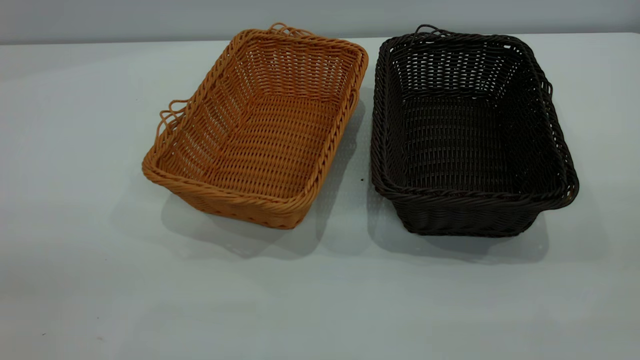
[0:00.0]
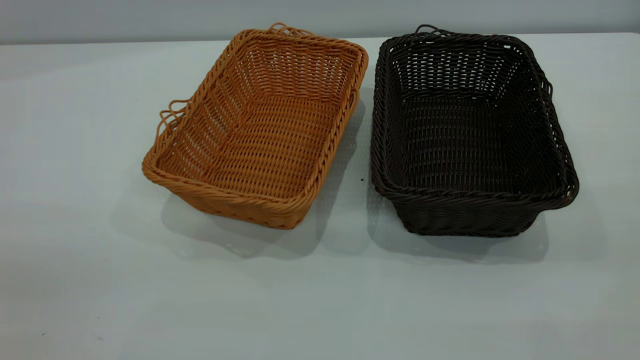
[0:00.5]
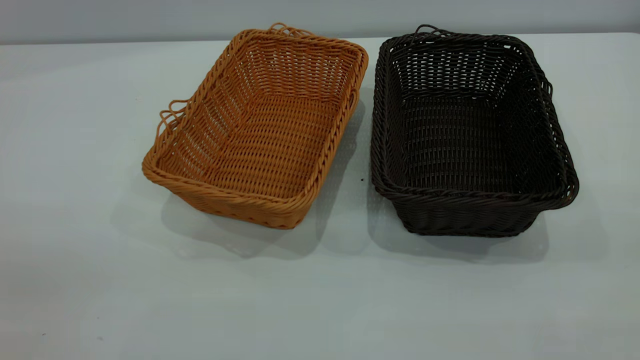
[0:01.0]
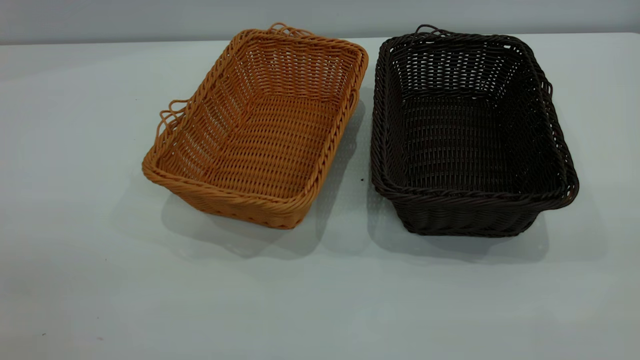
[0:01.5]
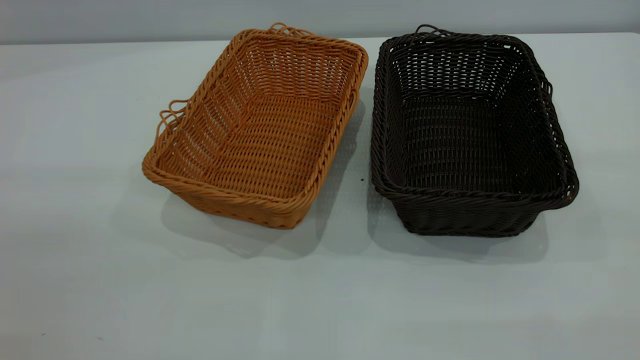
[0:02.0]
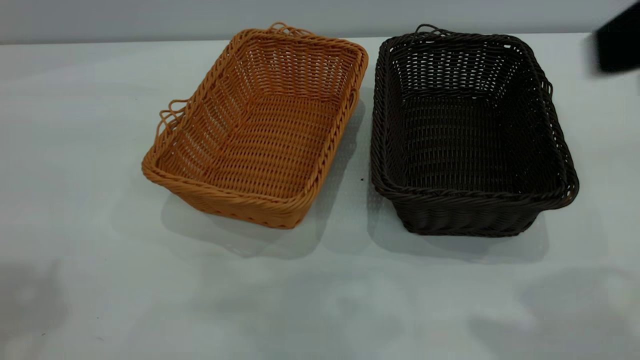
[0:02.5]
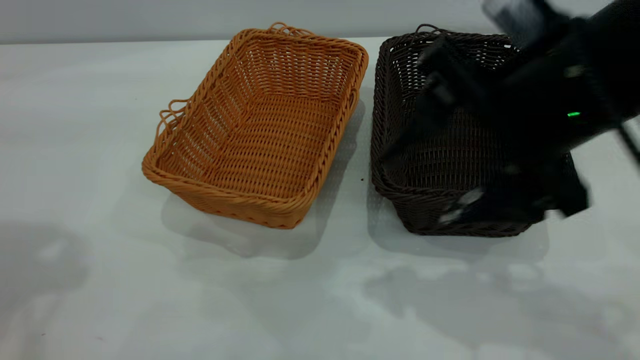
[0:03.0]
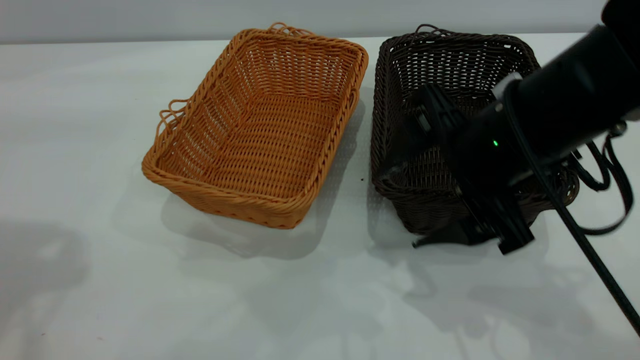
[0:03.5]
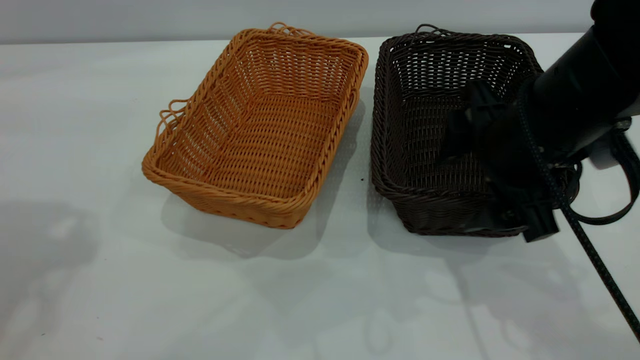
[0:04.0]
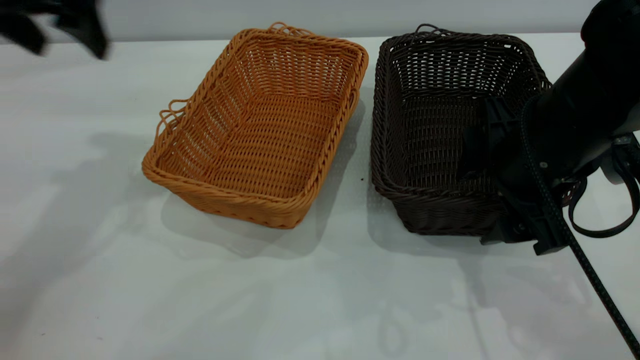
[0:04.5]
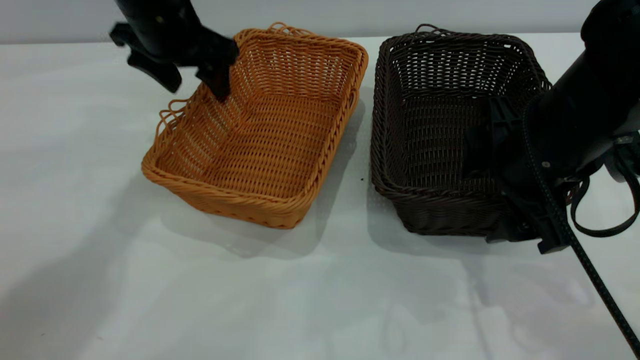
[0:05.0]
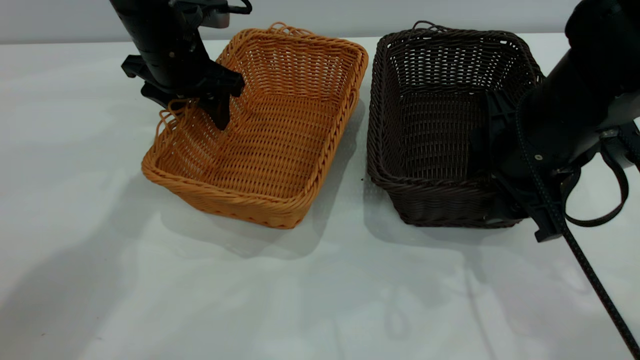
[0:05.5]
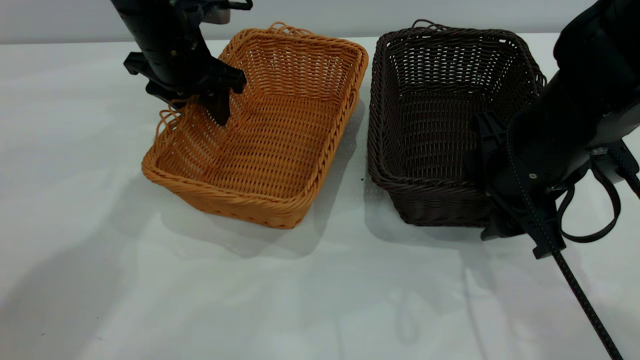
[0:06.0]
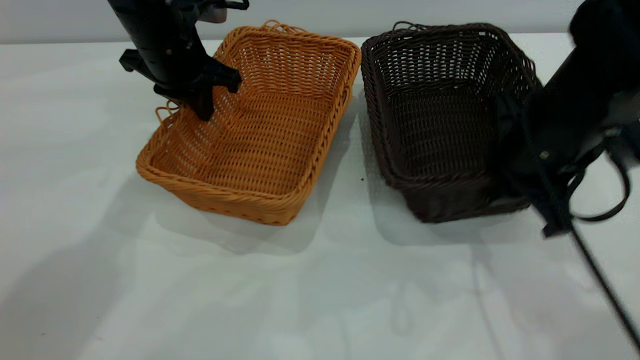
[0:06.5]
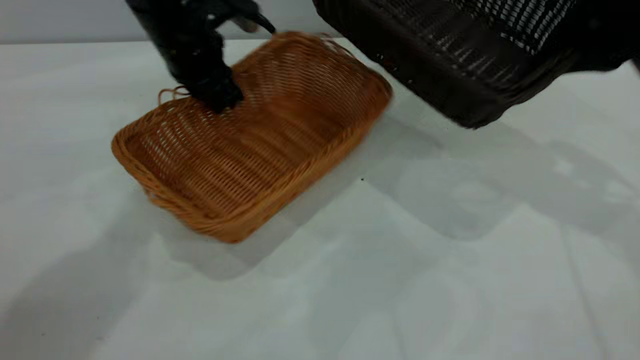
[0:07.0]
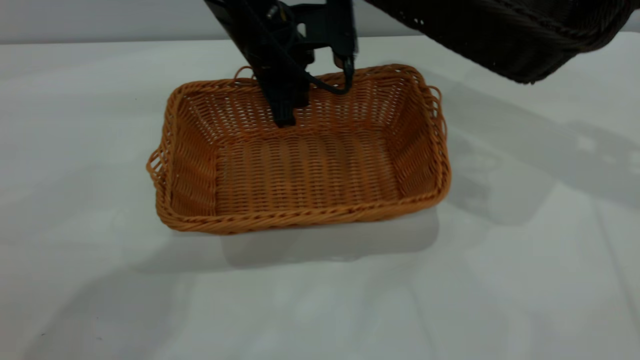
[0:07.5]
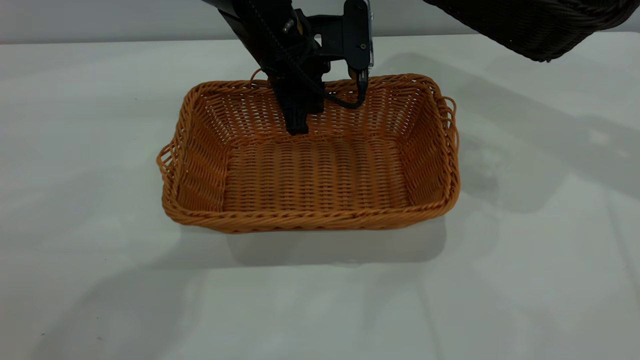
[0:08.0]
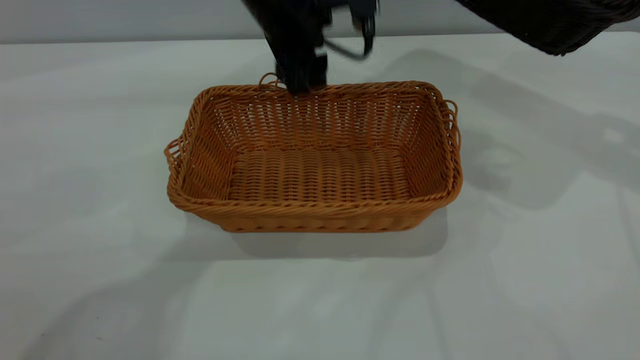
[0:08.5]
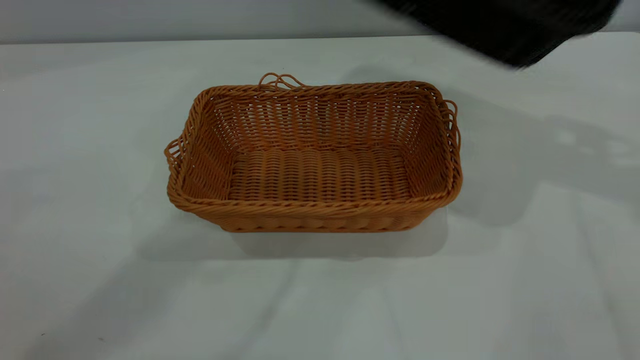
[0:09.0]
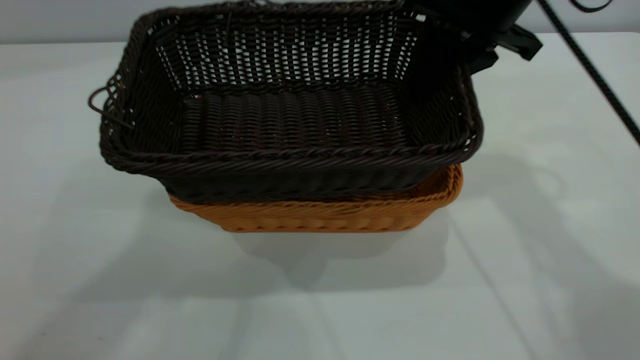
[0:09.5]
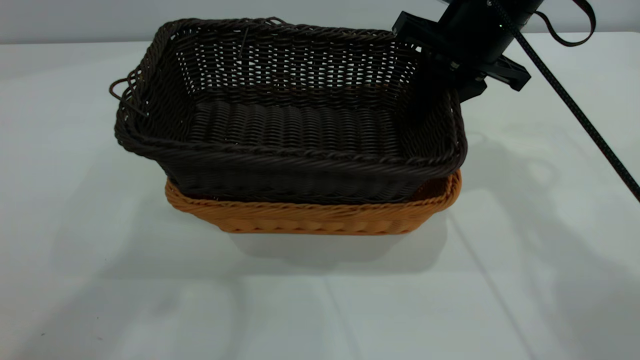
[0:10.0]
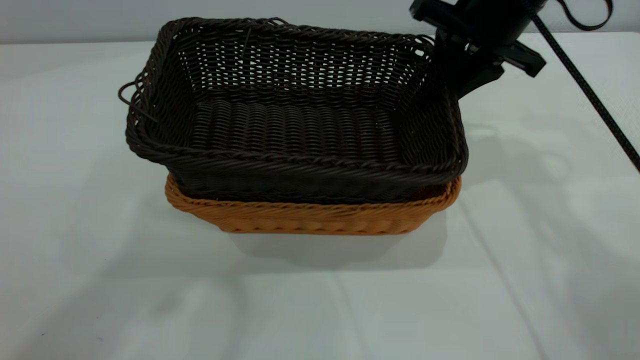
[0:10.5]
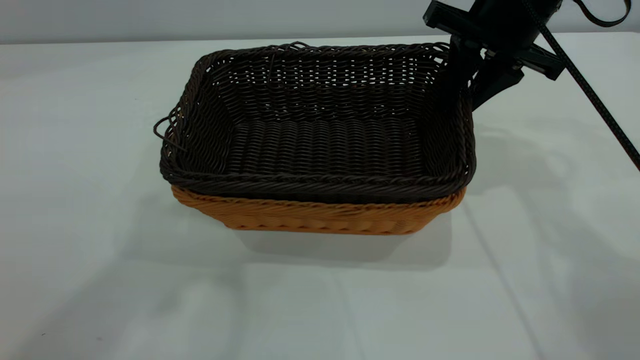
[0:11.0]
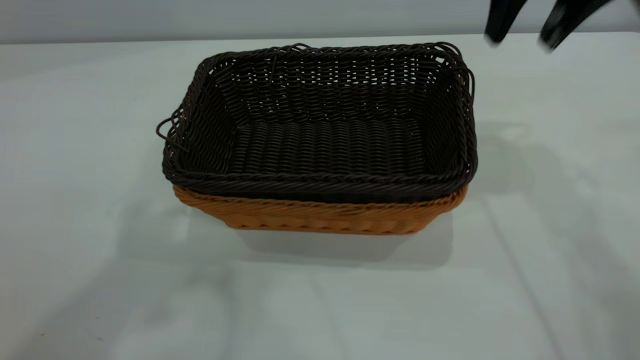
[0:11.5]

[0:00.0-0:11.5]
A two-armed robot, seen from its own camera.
Task of the whole recording: the left gripper grasp the brown basket and place it in the center of the table, the right gripper grasp the black basket and place it inside the brown one.
Step, 0:00.0 to 0:06.5: Pick up the light basket with the right gripper.
Step, 0:07.0 to 0:08.5: Place the light-colored basket in the center.
Step, 0:09.0 to 0:11.0: Place the dark basket on top of the light basket.
0:02.0 to 0:04.0: The right gripper moves forward, downward and to the left, about 35 cm.
0:04.0 to 0:06.0: The left gripper heads downward, forward and to the right, covering roughly 30 cm, and closes up, while the right gripper closes its fingers.
0:06.0 to 0:07.5: The right gripper heads upward, to the right and forward, covering roughly 25 cm, and closes; the left gripper shifts approximately 10 cm to the right, and closes its fingers.
0:07.5 to 0:09.5: The right gripper travels to the left by roughly 15 cm, while the left gripper travels upward and backward by about 40 cm, and opens.
0:09.5 to 0:11.5: The right gripper shifts some 10 cm upward and to the right, and opens up.

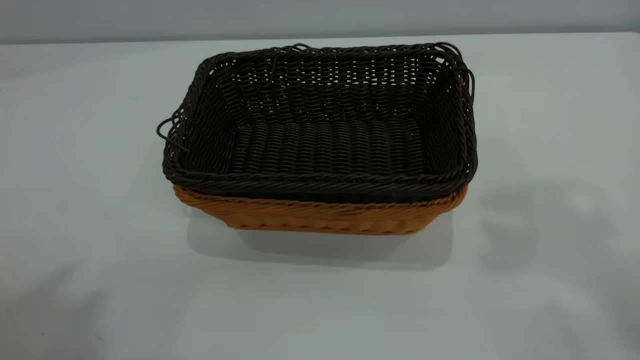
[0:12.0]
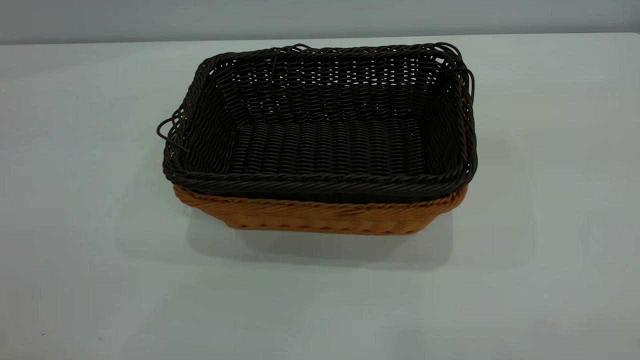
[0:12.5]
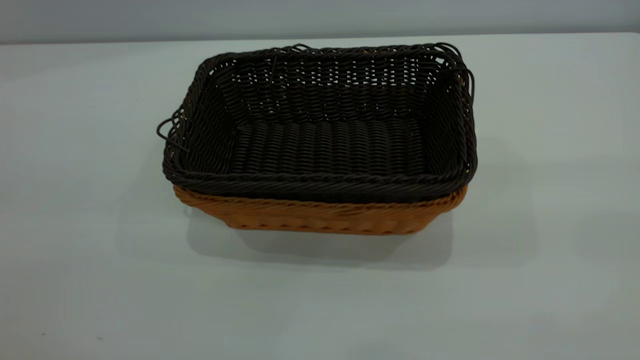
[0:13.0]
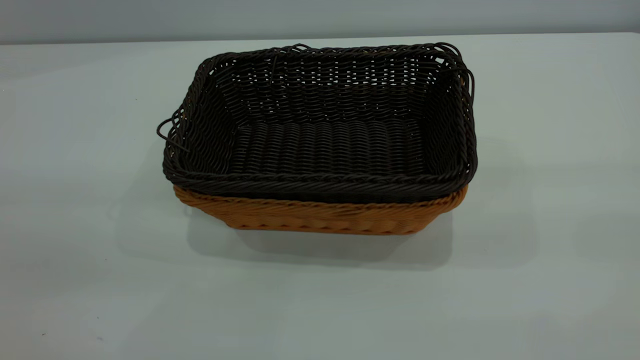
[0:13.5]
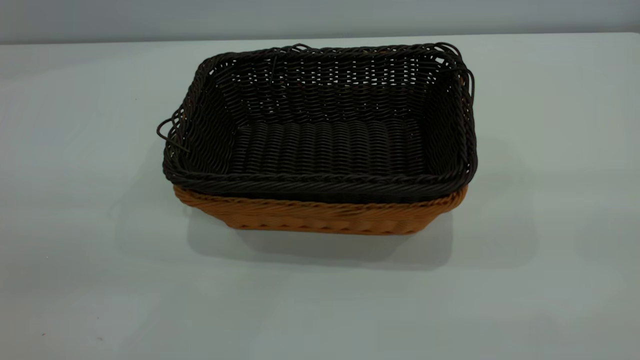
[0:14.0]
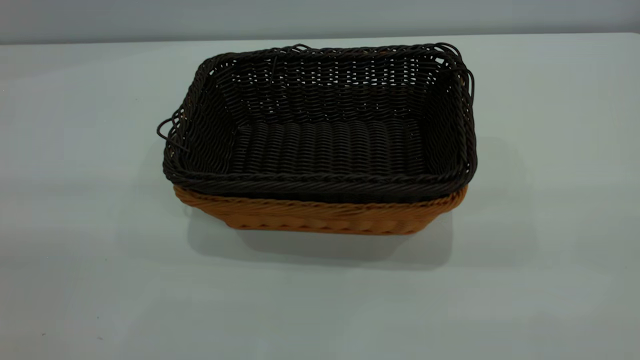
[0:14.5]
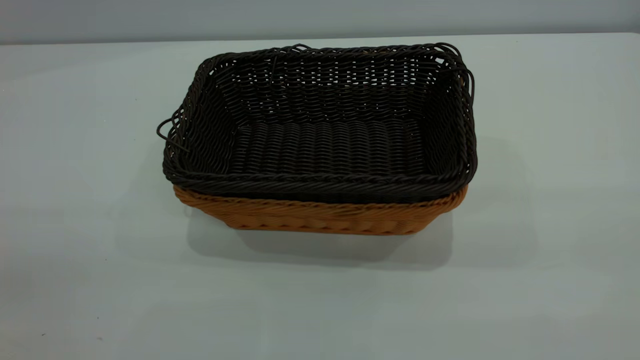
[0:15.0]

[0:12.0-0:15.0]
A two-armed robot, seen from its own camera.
Task of the whole recording: the left gripper grasp the brown basket and place it in the center of the table, the right gripper grasp the black basket and place it inside the brown one.
0:12.0 to 0:13.5: The left gripper goes about 25 cm downward.

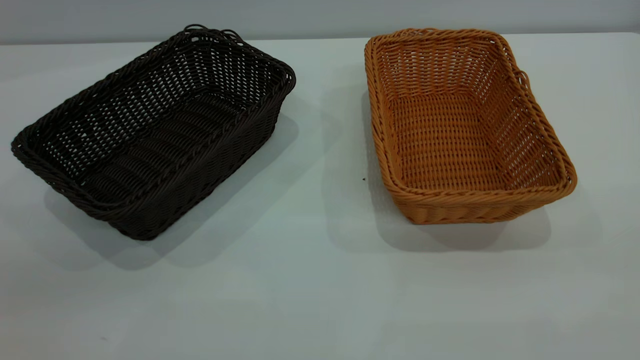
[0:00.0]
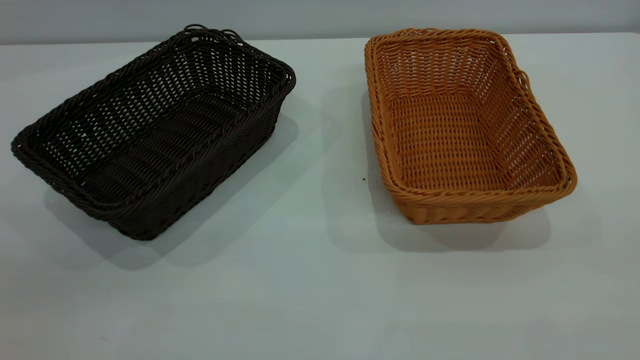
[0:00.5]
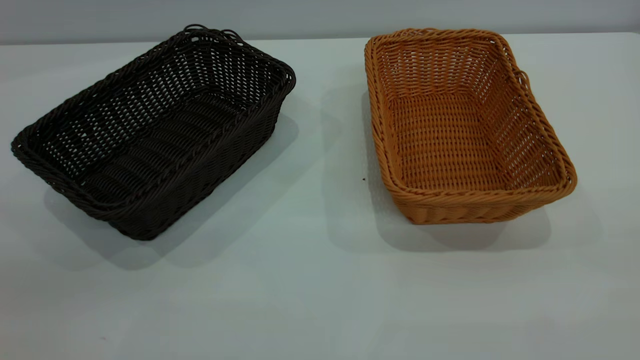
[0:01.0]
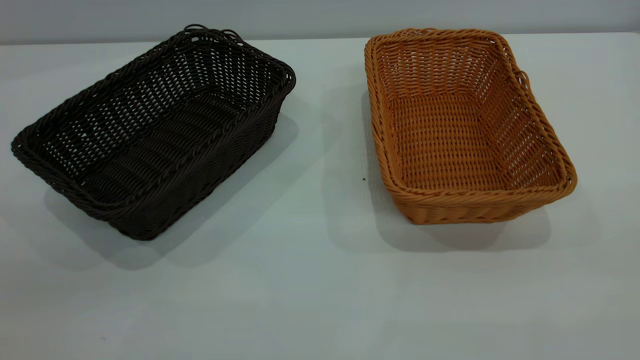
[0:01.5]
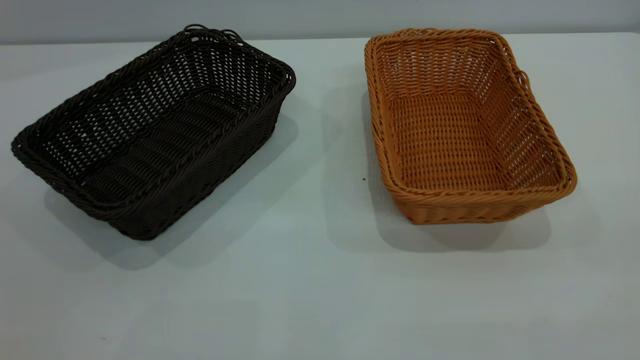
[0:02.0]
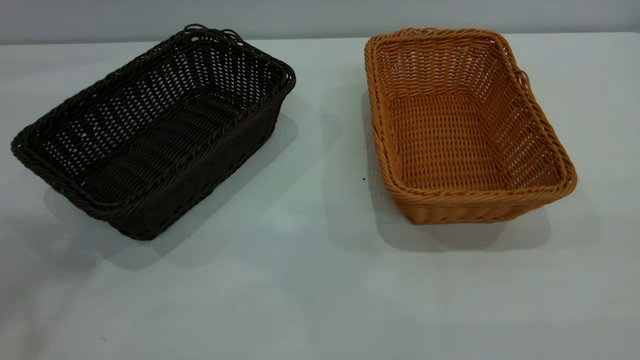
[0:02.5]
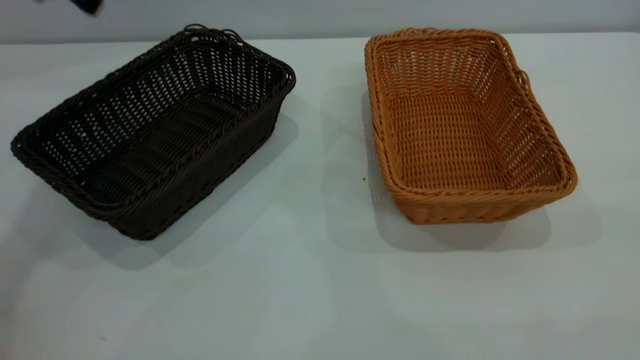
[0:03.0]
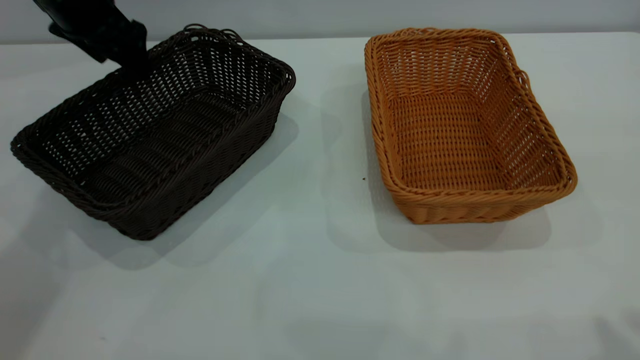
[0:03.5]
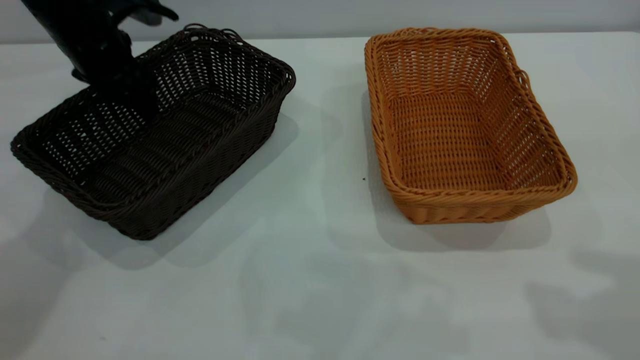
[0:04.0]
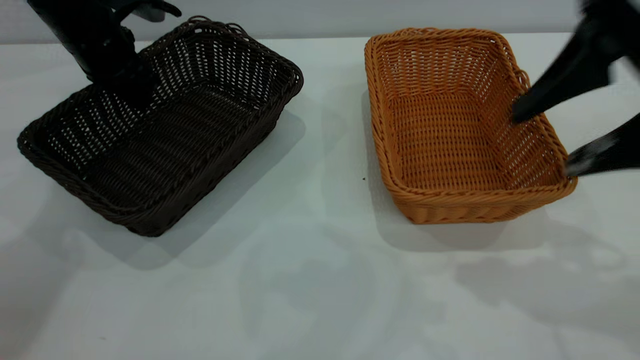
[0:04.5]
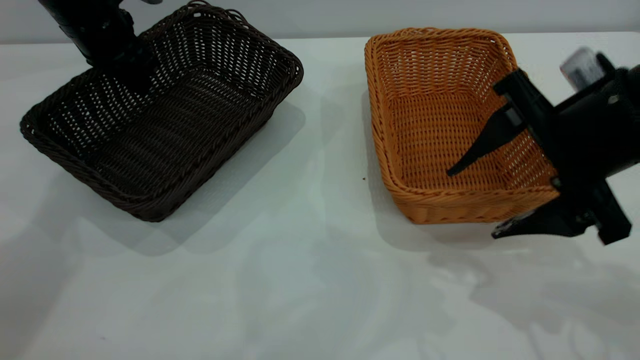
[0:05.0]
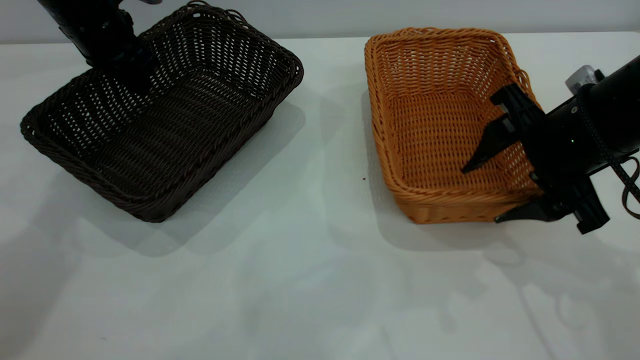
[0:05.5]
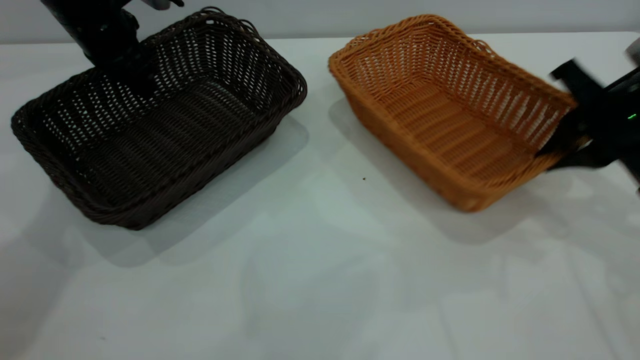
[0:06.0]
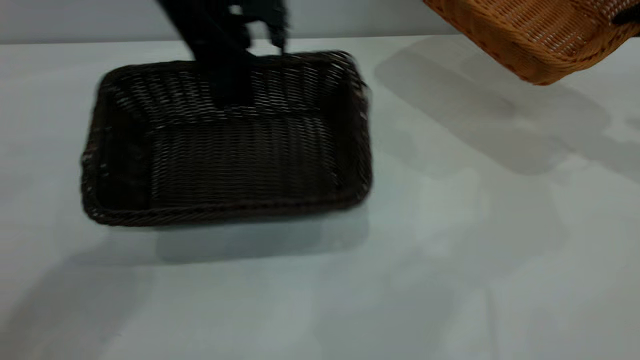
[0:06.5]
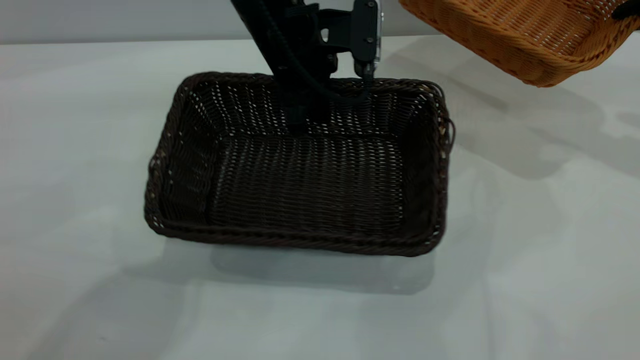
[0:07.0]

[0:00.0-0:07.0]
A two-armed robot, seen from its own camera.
Task of the whole recording: the left gripper grasp the black basket and place it in the center of the table, the right gripper grasp the brown basket and place it inside the black one.
Step, 0:00.0 to 0:06.0: Pick up the light basket with the right gripper.
0:02.0 to 0:03.5: The left gripper heads forward and downward, covering some 50 cm.
0:03.5 to 0:05.0: The left gripper closes, while the right gripper travels downward, forward and to the left by about 25 cm.
0:05.0 to 0:07.0: The left gripper shifts about 25 cm to the right. The right gripper goes about 25 cm to the right and forward, and closes its fingers.
